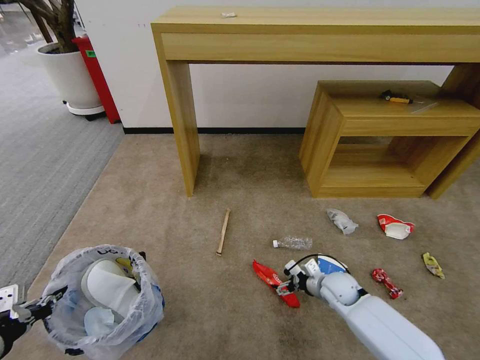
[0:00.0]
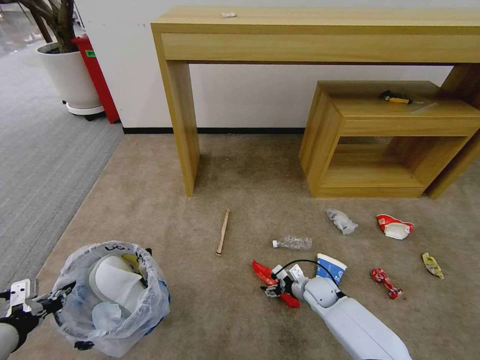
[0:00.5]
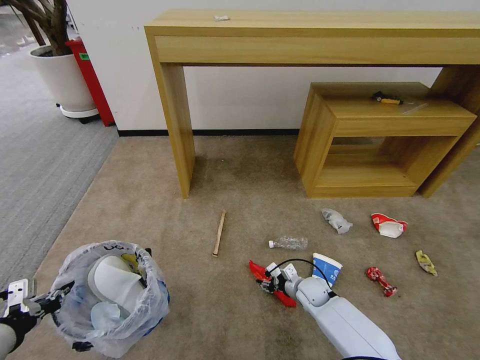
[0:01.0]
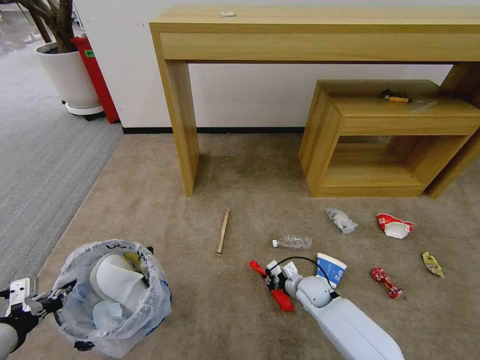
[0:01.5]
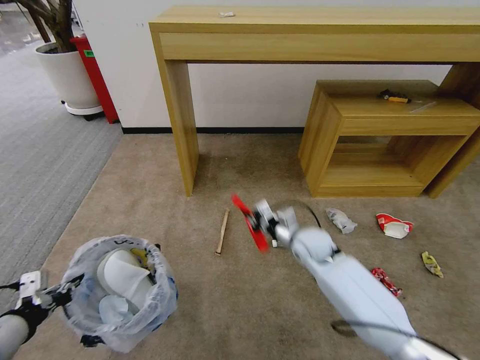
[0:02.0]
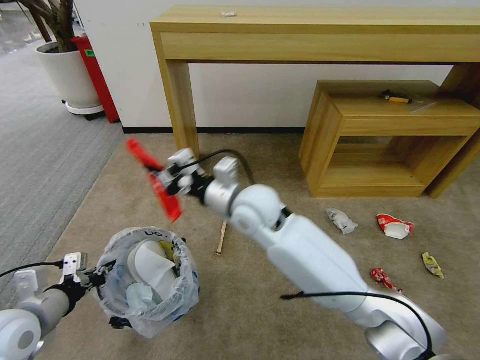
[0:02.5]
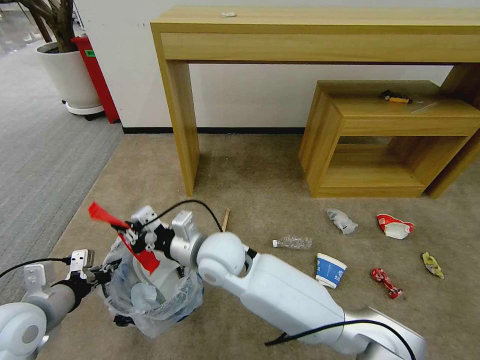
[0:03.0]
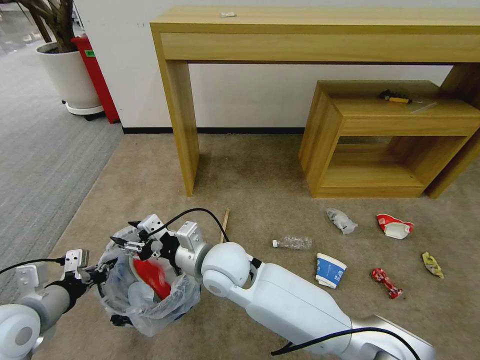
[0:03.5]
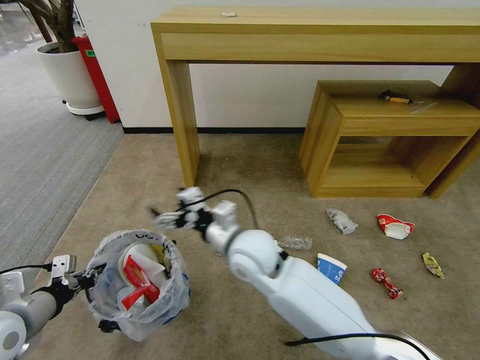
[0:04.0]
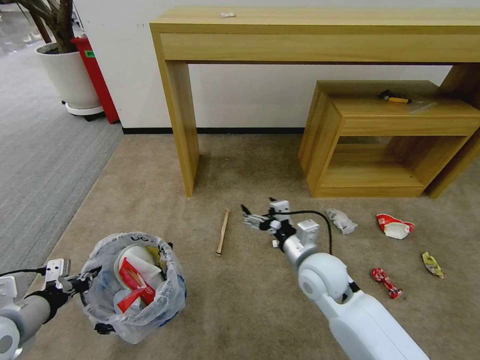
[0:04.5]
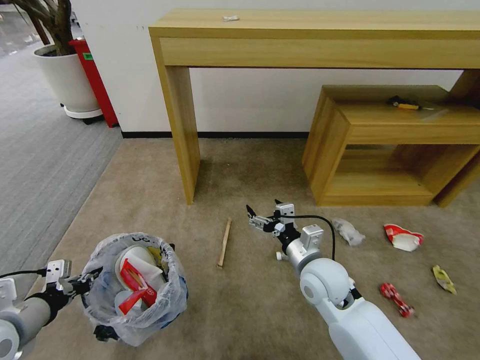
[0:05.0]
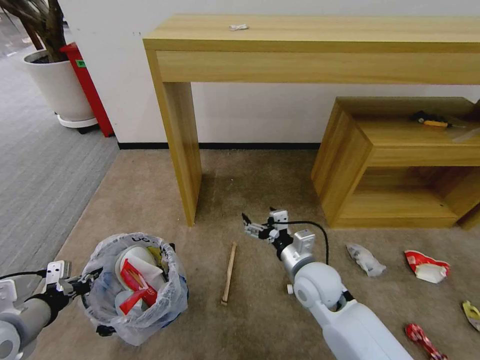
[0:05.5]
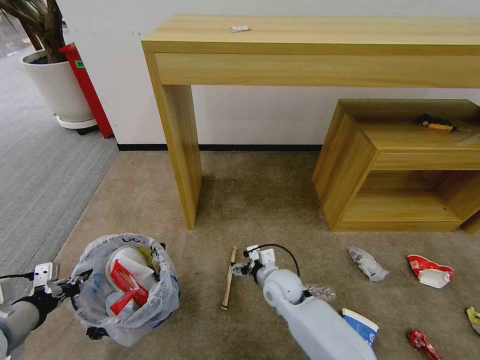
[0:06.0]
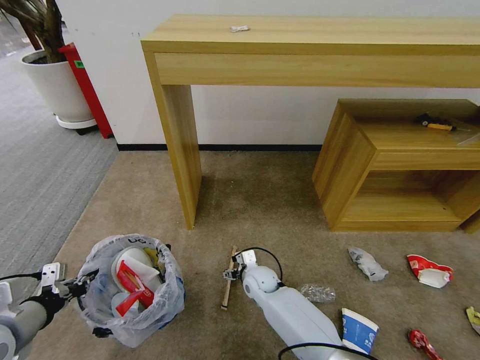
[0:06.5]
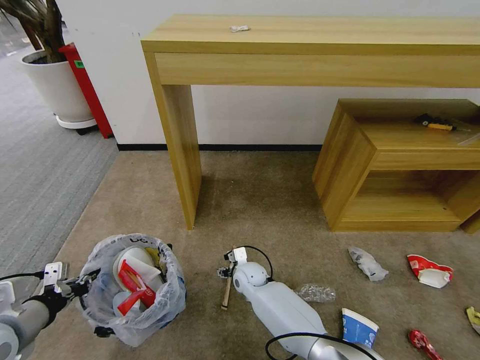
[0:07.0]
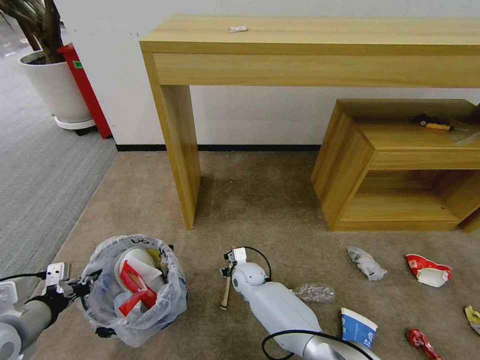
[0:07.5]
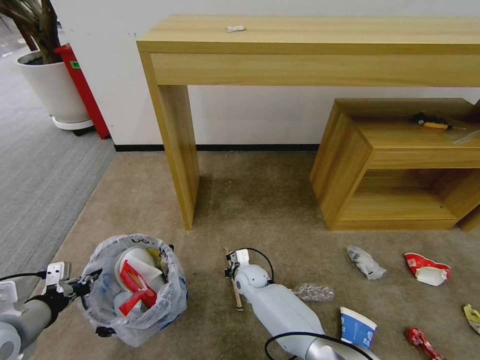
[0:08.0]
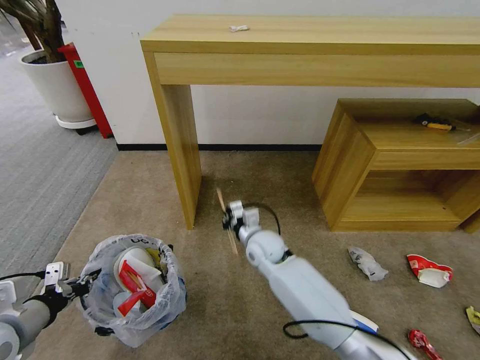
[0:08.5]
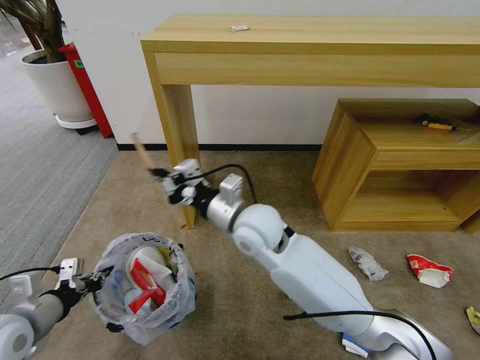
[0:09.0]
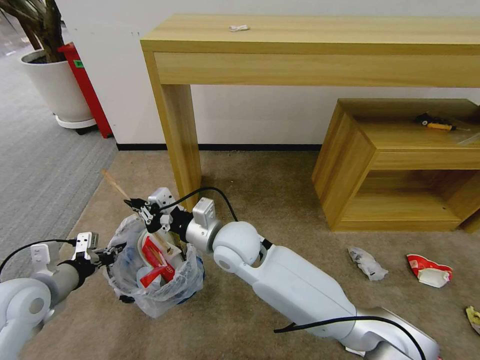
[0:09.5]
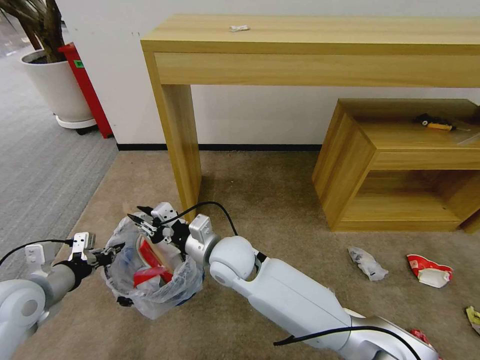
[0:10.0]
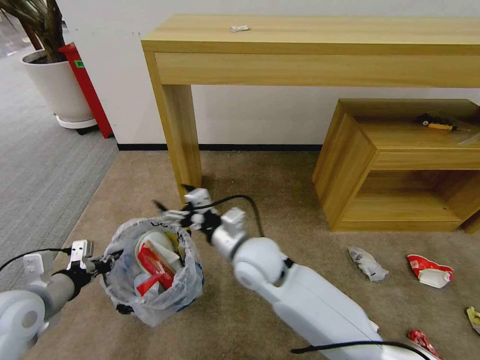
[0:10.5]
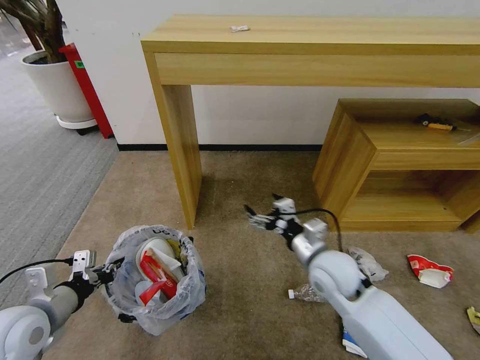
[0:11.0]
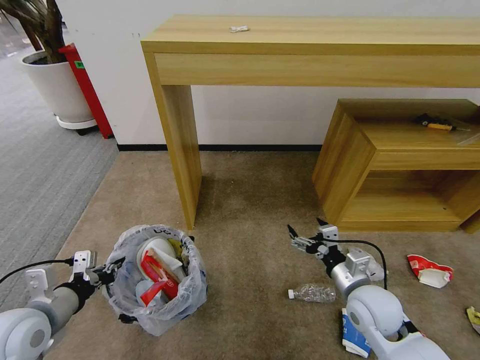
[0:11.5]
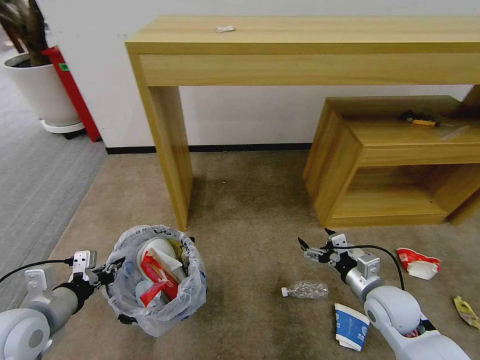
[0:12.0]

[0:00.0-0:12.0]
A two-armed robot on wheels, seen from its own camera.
Task of the whole recording: Pick up the trash bin and place the garbage on the floor into it.
0:00.0 to 0:02.0: The right gripper moves upward, to the left and forward, roughly 15 cm, and closes up.
0:02.0 to 0:04.0: The right gripper travels to the left, upward and backward by some 20 cm, and opens its fingers. The left gripper moves forward, about 5 cm.
0:04.0 to 0:06.0: The right gripper shifts approximately 20 cm downward and to the right.
0:06.0 to 0:08.0: The right gripper is displaced downward, to the left and forward by roughly 15 cm, and closes.
0:08.0 to 0:10.0: The left gripper goes approximately 5 cm forward, while the right gripper travels upward by approximately 25 cm.
0:10.0 to 0:12.0: The right gripper moves to the right, roughly 35 cm, and opens up. The left gripper moves about 5 cm.

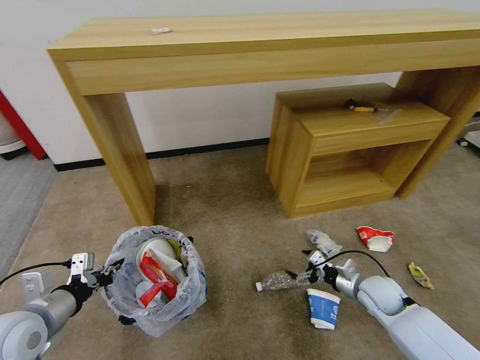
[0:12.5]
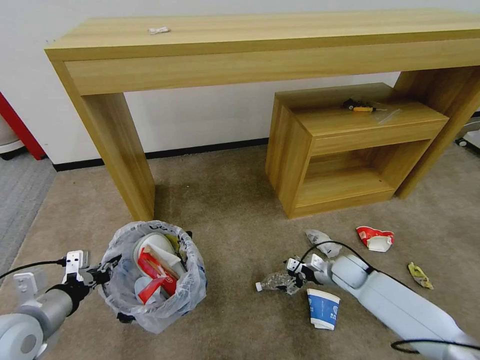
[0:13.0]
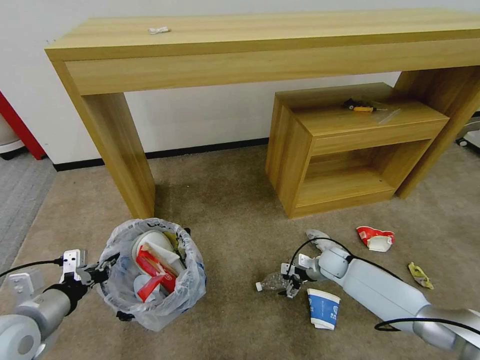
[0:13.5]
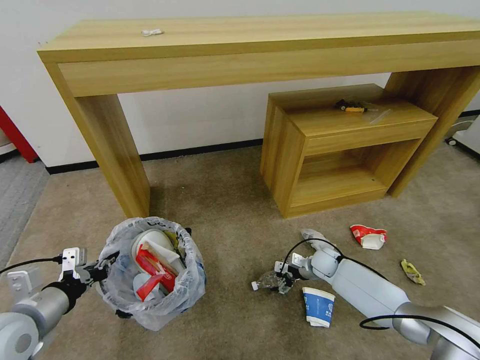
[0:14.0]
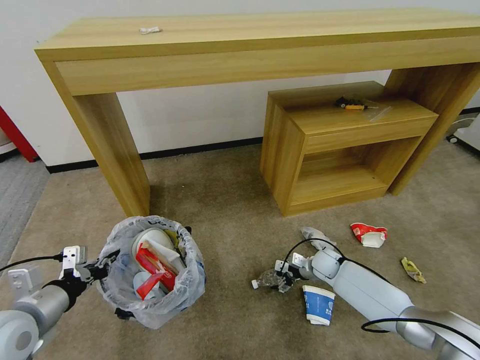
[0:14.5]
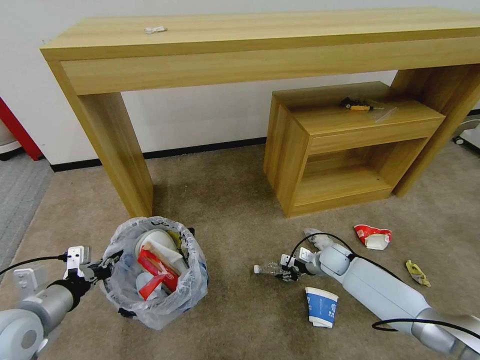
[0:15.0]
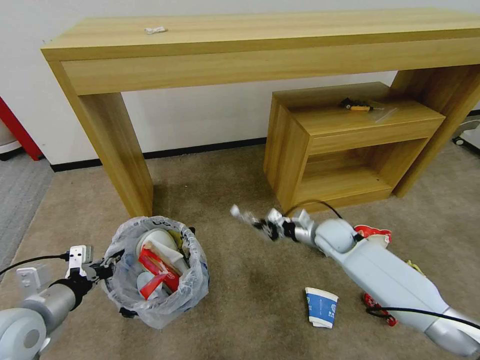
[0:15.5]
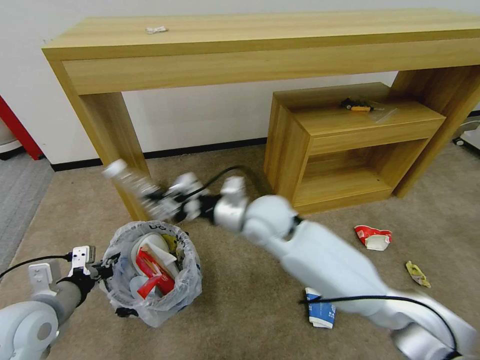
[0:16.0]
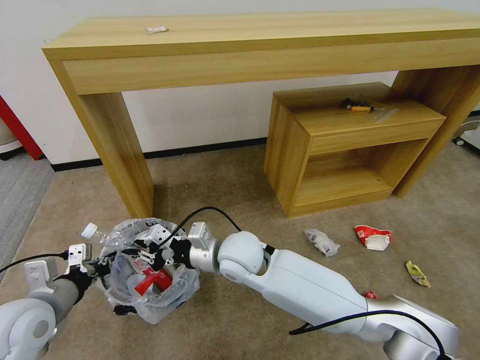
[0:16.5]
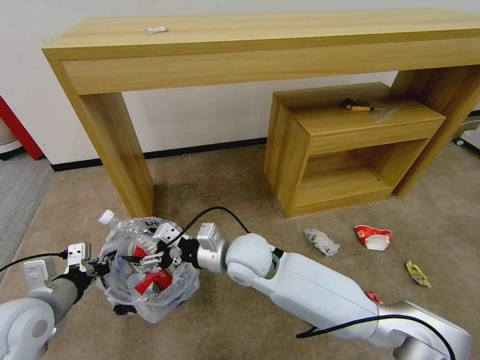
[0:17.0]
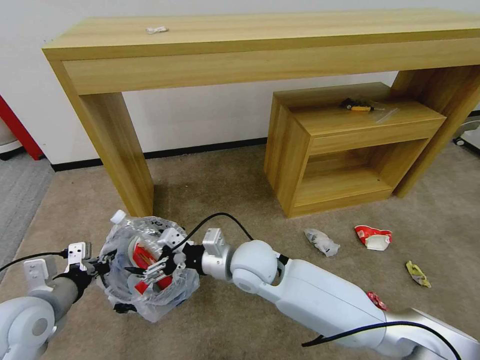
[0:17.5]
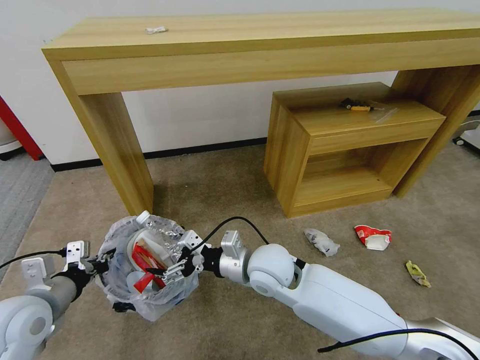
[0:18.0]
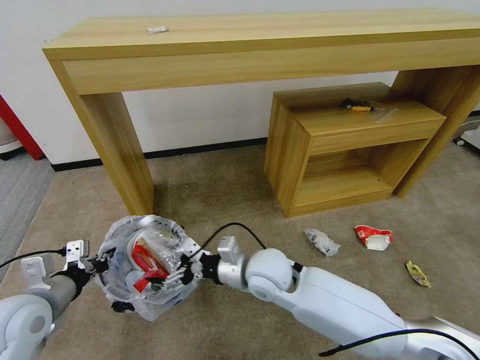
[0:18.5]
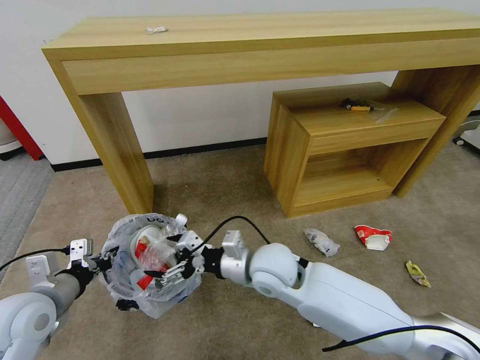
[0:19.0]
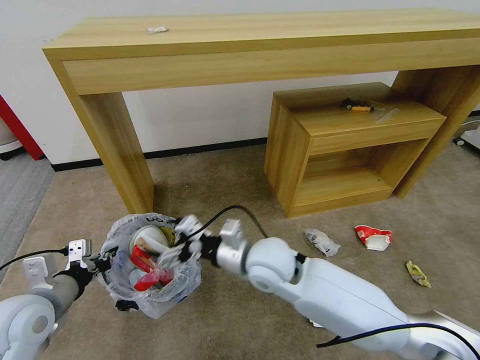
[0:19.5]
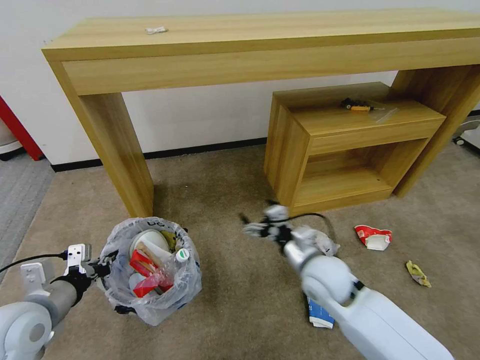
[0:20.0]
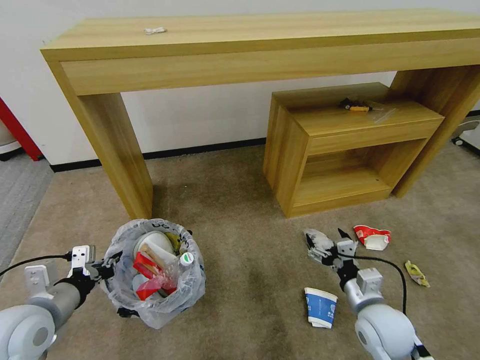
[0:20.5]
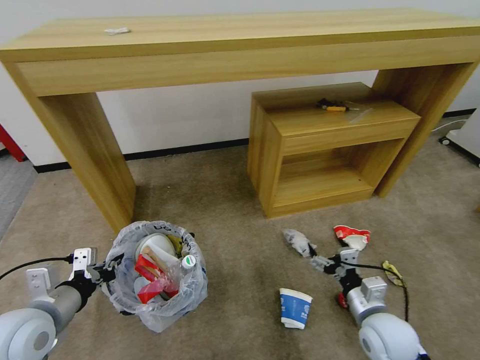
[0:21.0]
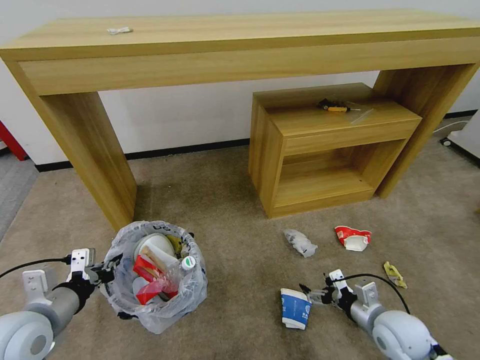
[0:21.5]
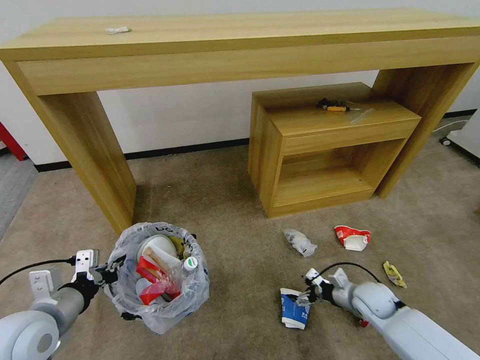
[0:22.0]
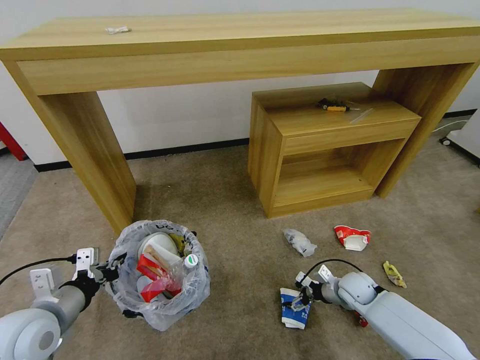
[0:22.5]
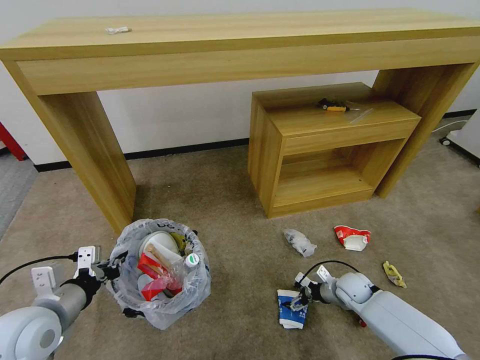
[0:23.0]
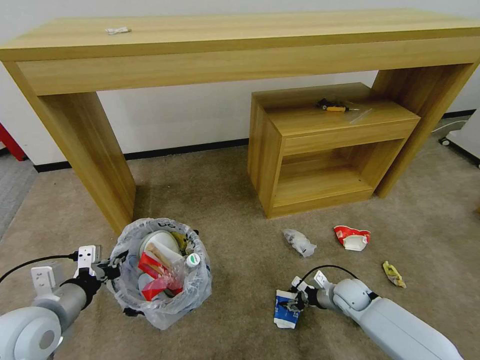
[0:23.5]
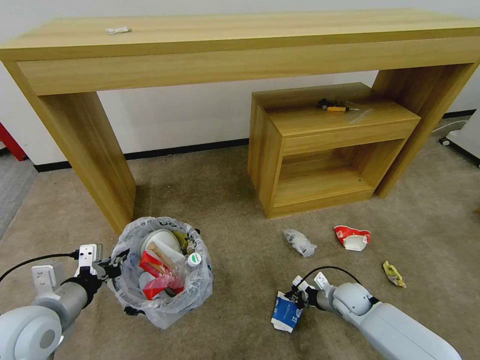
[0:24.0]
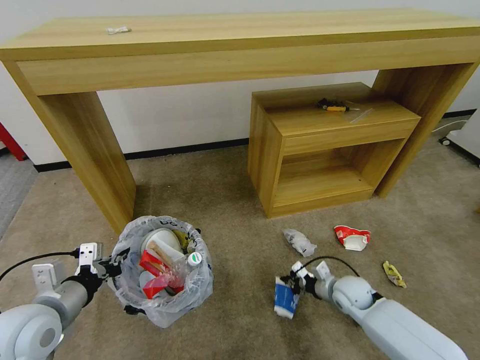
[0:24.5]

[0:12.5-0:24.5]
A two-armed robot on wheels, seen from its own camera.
Task of the whole recording: Pick up the trash bin and place the garbage on the floor into it.
0:12.5 to 0:14.5: The right gripper travels forward, downward and to the left by roughly 15 cm.
0:14.5 to 0:16.5: The right gripper moves to the left and upward, about 35 cm, and closes its fingers.
0:16.5 to 0:18.5: The right gripper heads to the right, covering about 5 cm, and opens.
0:18.5 to 0:20.5: The right gripper travels to the right by about 25 cm.
0:20.5 to 0:22.5: The right gripper travels forward and downward by some 20 cm.
0:22.5 to 0:24.5: The right gripper closes its fingers.

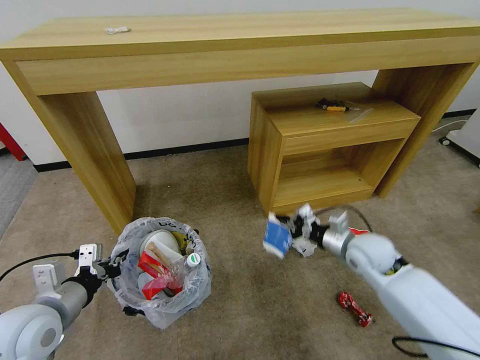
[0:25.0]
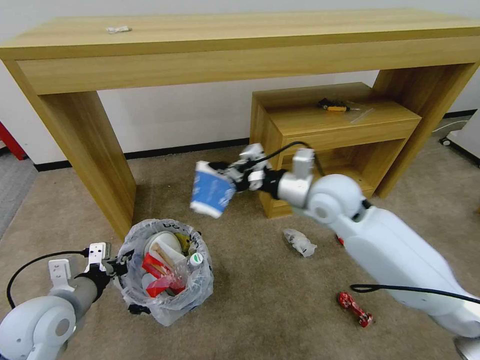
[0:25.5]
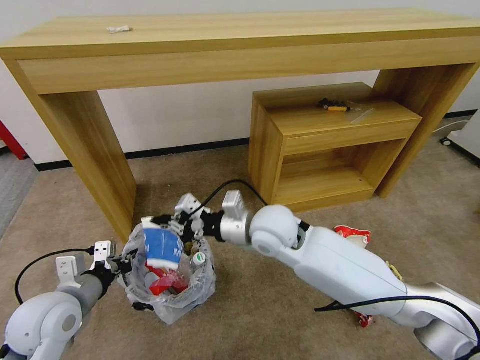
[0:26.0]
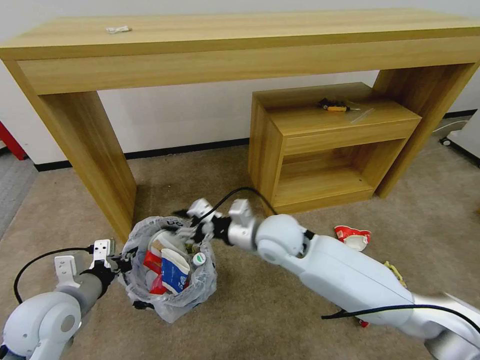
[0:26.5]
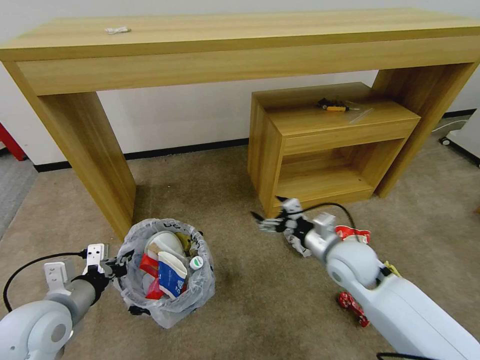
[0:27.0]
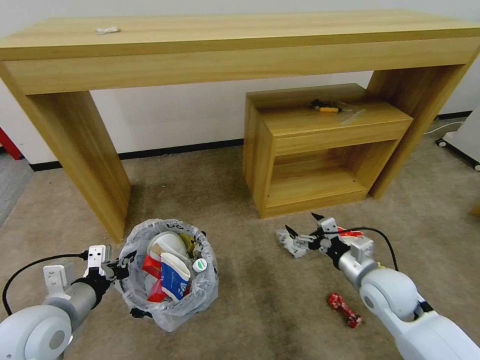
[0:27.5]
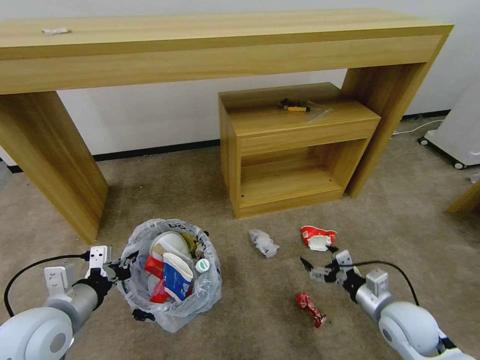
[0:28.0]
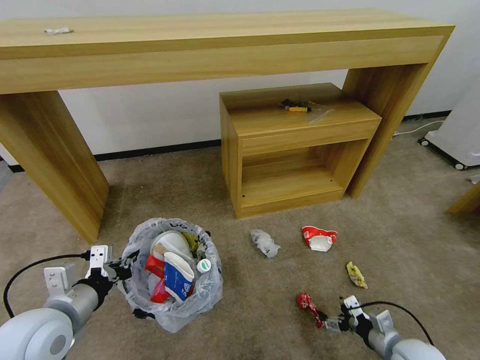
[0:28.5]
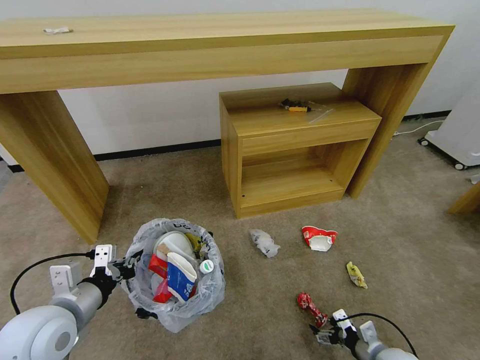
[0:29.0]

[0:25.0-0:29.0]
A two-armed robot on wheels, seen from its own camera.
Task of the whole recording: Pick up the trash bin and place the garbage on the floor into it.
0:25.0 to 0:27.0: The right gripper reaches roughly 25 cm to the left, then returns, and opens its fingers.
0:27.0 to 0:29.0: The right gripper shifts approximately 30 cm downward, backward and to the right.
